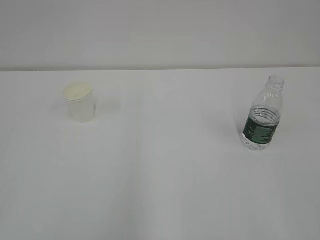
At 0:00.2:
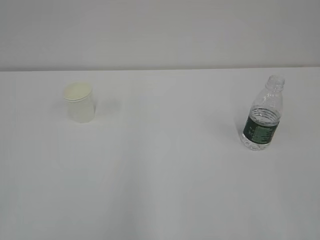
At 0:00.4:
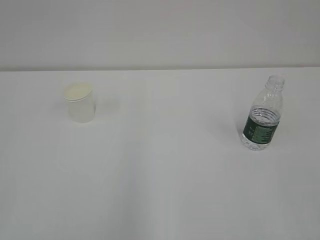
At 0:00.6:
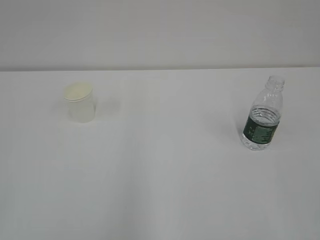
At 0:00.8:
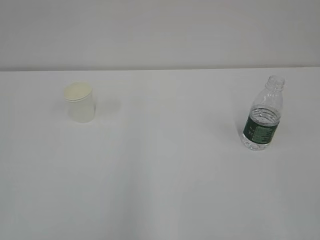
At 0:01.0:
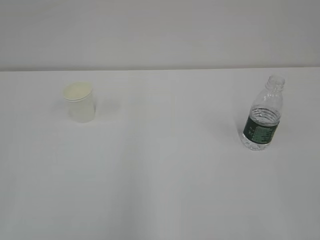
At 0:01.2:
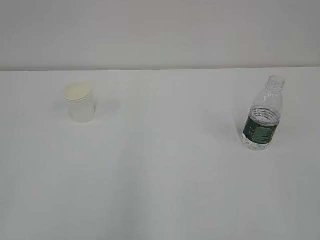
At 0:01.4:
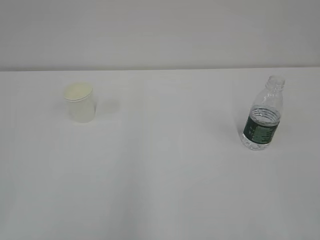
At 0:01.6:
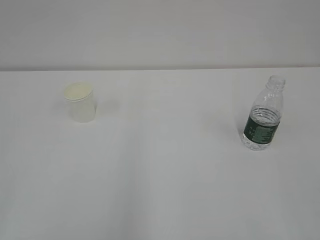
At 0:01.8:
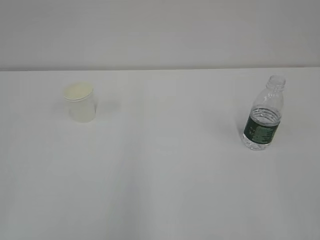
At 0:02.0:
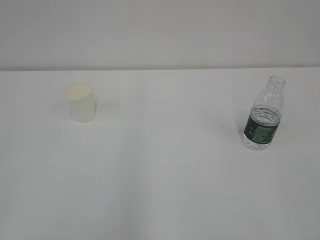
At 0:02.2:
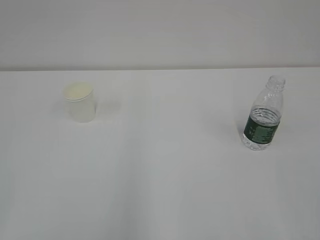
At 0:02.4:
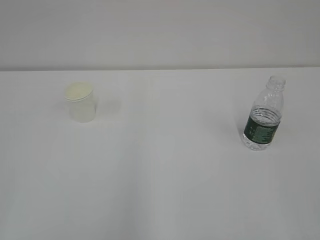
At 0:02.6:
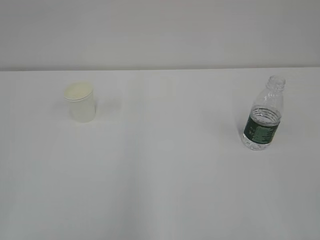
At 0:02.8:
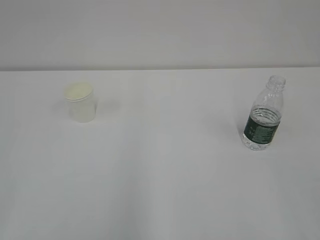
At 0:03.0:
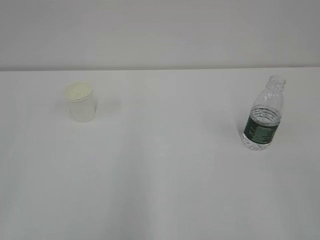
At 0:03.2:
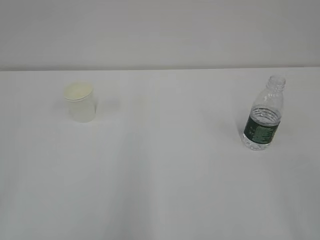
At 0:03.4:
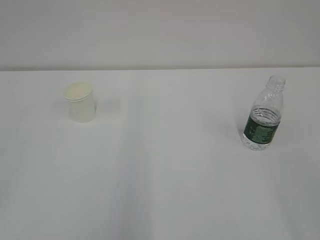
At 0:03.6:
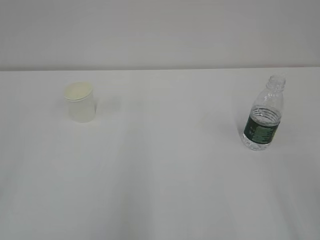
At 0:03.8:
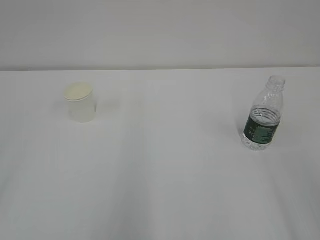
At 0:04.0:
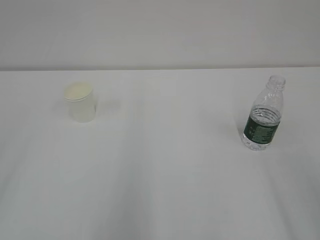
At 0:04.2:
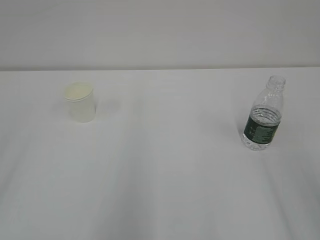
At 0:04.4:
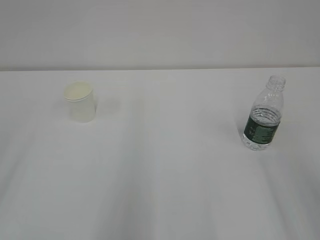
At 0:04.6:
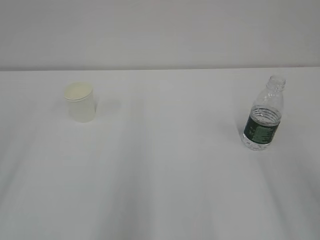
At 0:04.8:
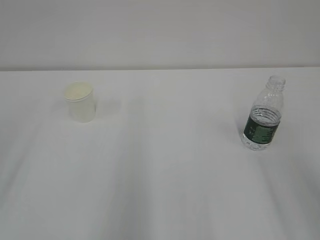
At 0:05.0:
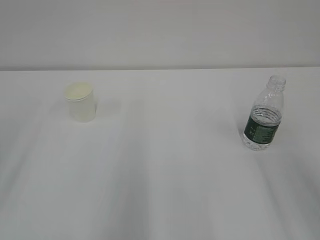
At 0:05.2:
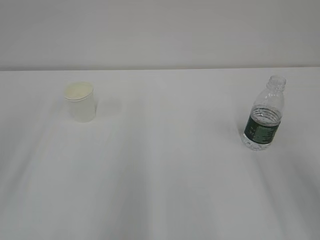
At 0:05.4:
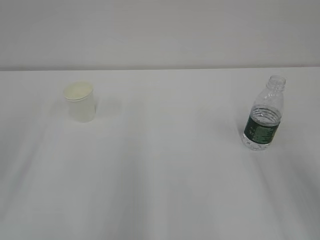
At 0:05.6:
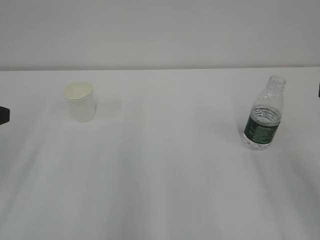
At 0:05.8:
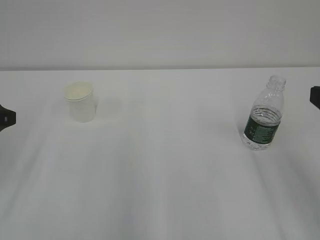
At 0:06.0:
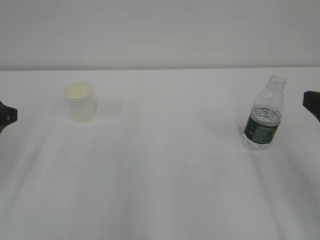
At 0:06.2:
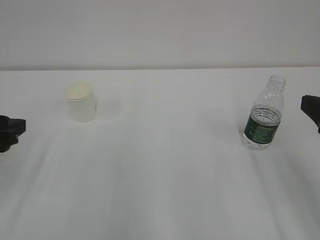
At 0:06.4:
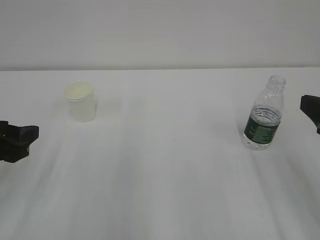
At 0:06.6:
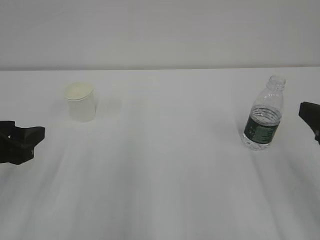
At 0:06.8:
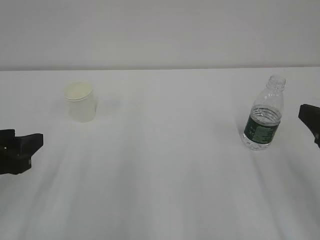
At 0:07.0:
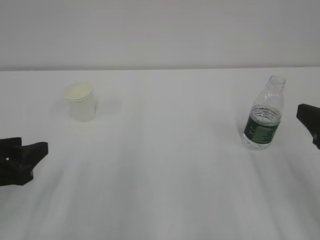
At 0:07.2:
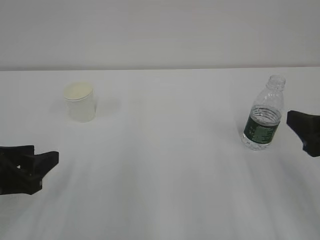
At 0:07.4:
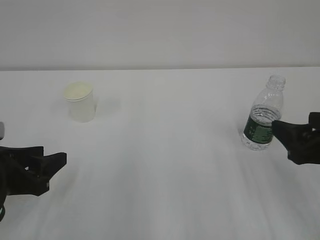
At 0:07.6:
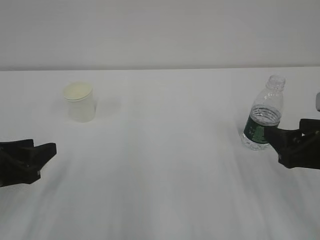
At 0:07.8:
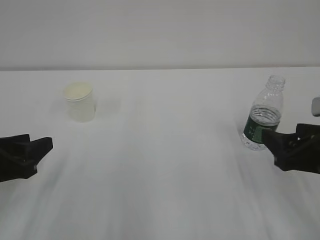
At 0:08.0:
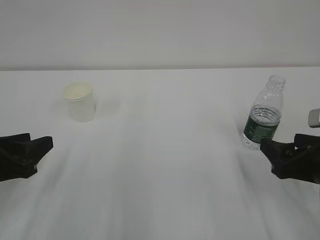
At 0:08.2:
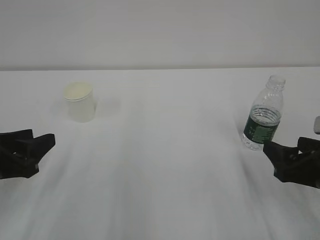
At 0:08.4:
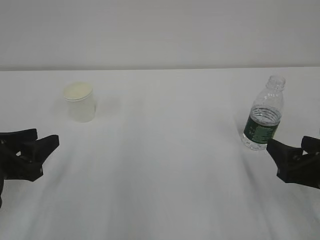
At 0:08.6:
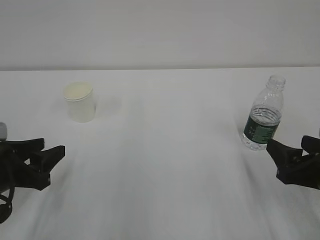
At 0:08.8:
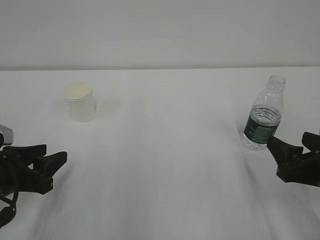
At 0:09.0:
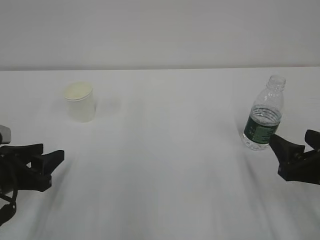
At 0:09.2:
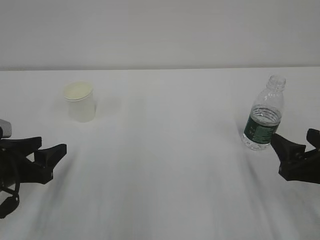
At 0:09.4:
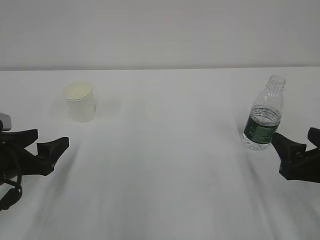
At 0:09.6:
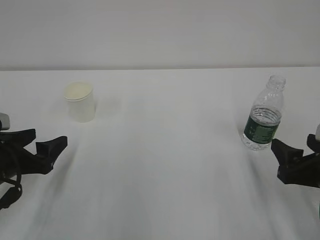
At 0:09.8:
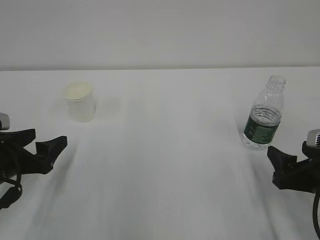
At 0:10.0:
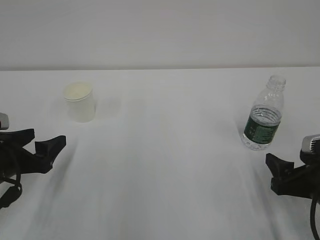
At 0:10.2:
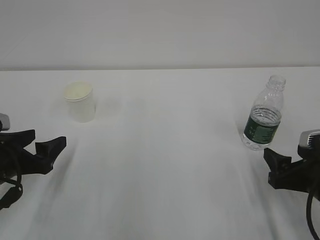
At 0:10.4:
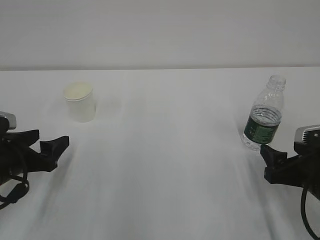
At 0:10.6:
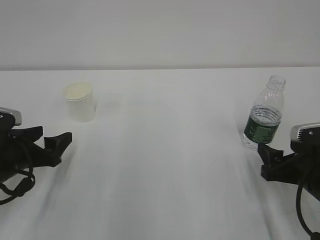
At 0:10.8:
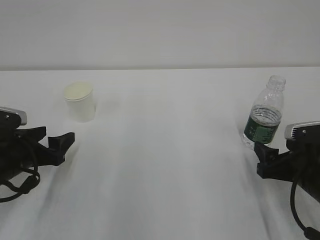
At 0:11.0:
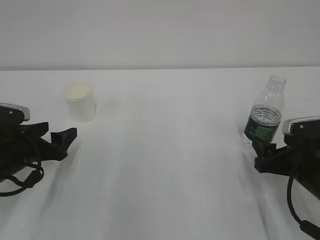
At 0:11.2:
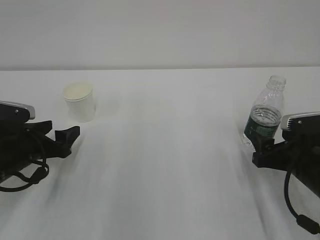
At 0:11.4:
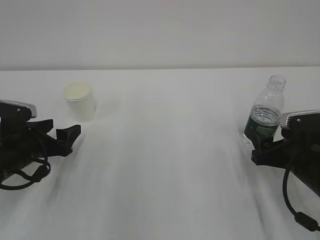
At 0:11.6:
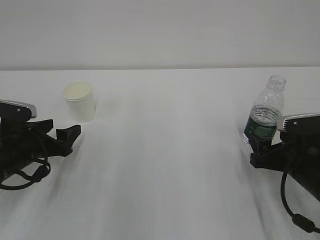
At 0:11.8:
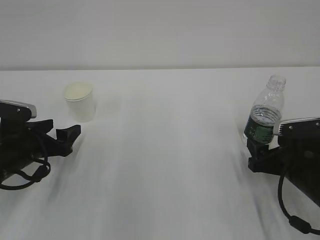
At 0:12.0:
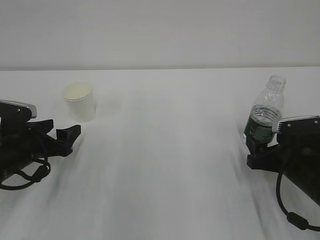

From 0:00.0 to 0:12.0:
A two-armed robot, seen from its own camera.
From 0:06.0 to 0:07.6: Both grippers travel together downward, approximately 5 cm. The left gripper closes up.
From 0:07.6 to 0:09.0: The grippers stay close to where they were, moving slightly.
From 0:09.0 to 0:10.4: The left gripper opens.
From 0:10.4 to 0:12.0: The right gripper moves some 5 cm. The left gripper ends up some 5 cm from where it was.

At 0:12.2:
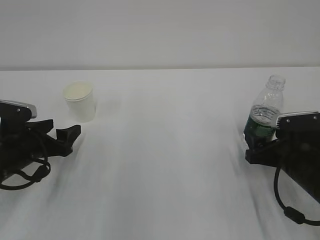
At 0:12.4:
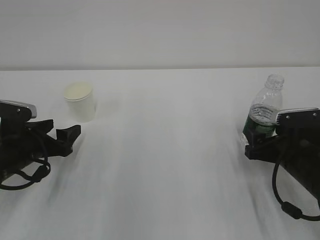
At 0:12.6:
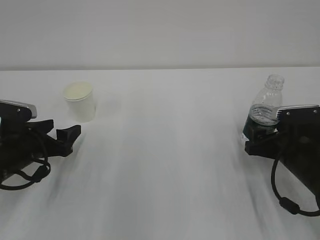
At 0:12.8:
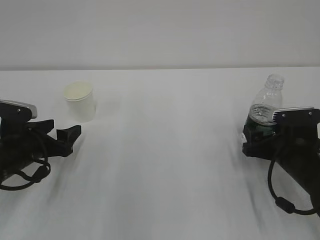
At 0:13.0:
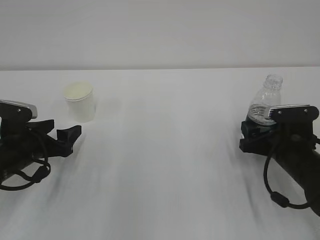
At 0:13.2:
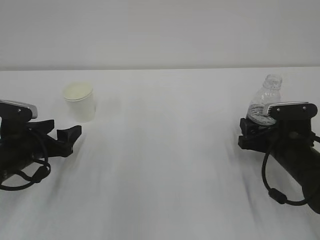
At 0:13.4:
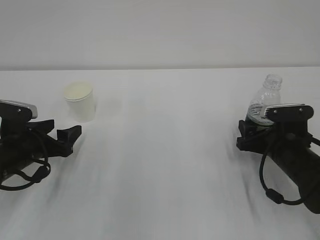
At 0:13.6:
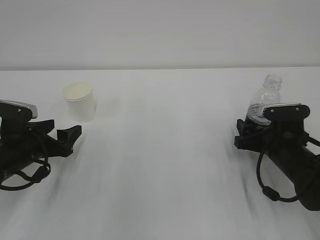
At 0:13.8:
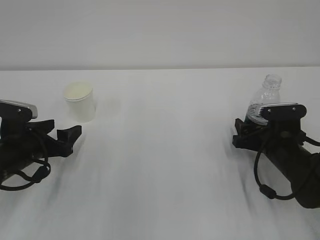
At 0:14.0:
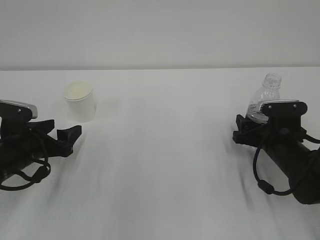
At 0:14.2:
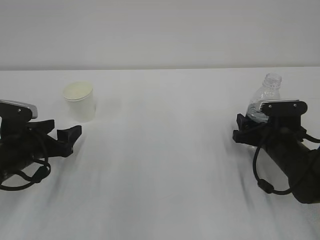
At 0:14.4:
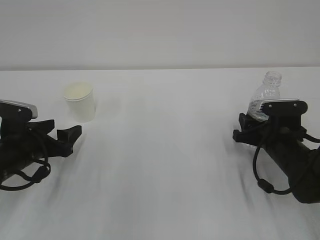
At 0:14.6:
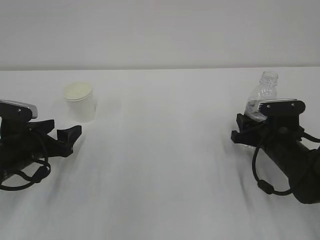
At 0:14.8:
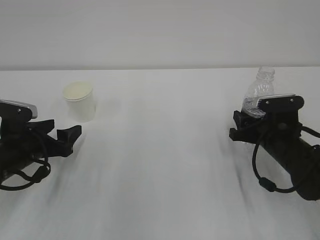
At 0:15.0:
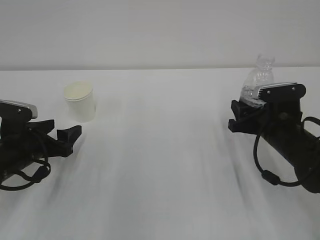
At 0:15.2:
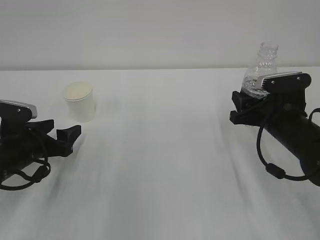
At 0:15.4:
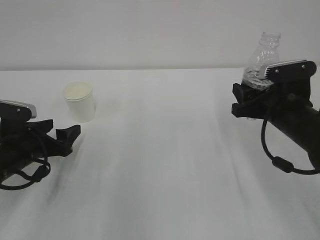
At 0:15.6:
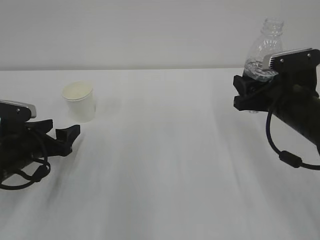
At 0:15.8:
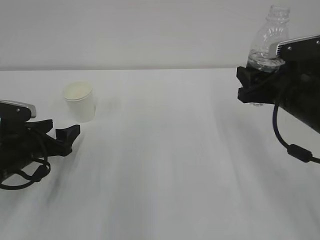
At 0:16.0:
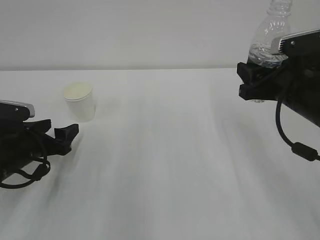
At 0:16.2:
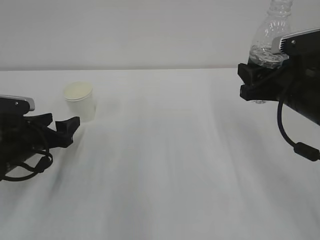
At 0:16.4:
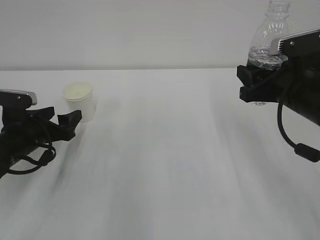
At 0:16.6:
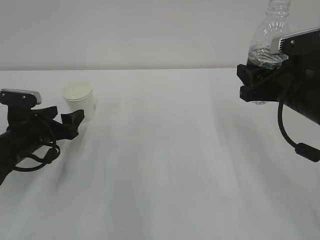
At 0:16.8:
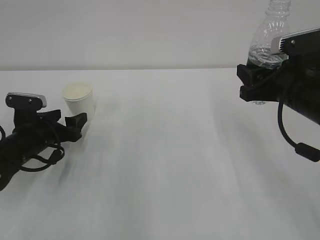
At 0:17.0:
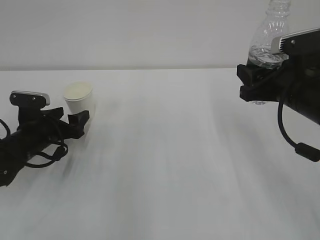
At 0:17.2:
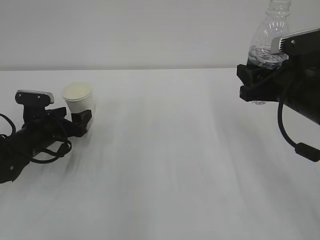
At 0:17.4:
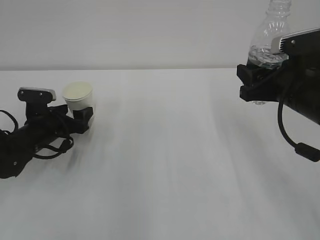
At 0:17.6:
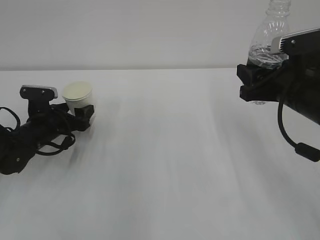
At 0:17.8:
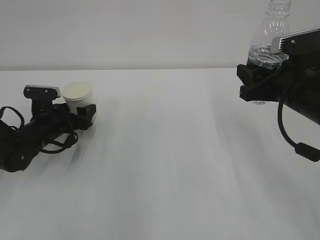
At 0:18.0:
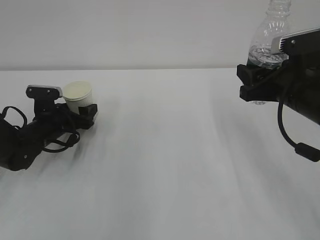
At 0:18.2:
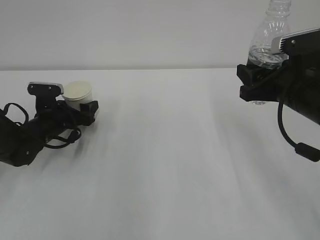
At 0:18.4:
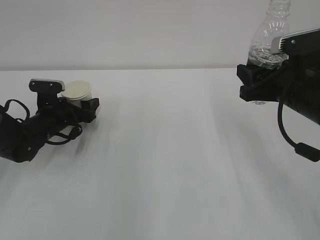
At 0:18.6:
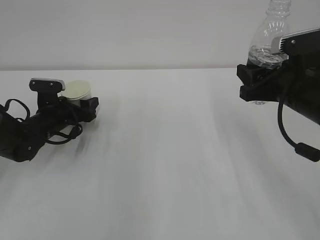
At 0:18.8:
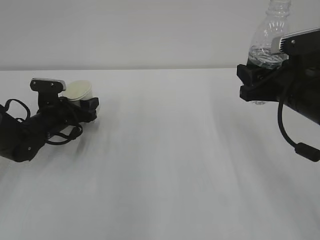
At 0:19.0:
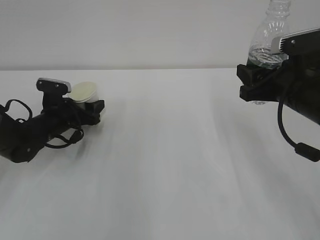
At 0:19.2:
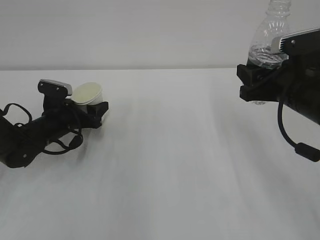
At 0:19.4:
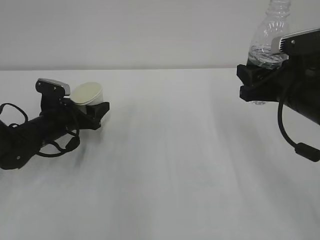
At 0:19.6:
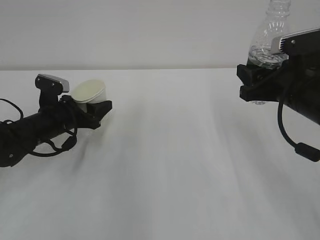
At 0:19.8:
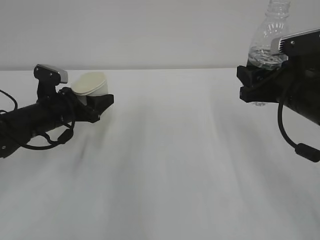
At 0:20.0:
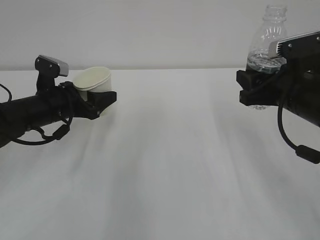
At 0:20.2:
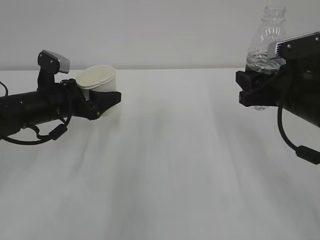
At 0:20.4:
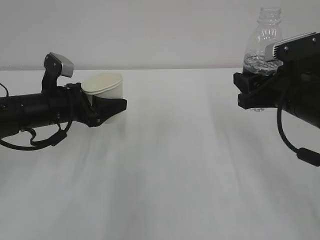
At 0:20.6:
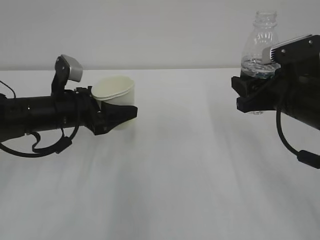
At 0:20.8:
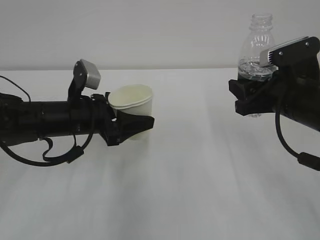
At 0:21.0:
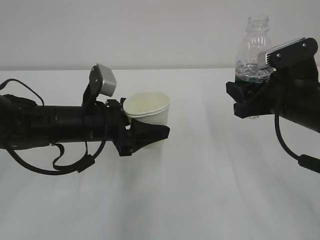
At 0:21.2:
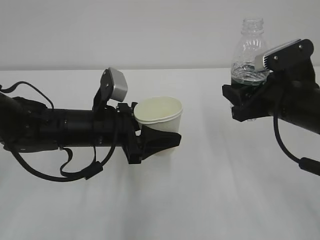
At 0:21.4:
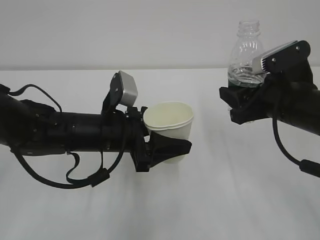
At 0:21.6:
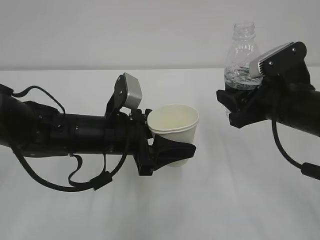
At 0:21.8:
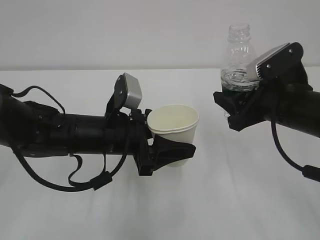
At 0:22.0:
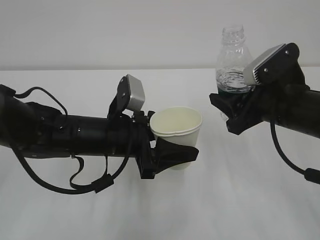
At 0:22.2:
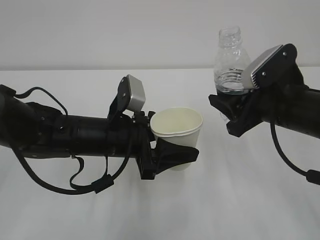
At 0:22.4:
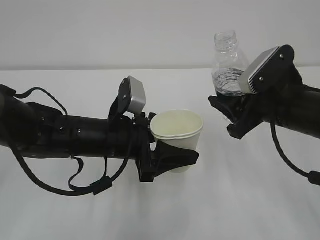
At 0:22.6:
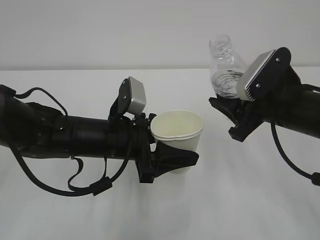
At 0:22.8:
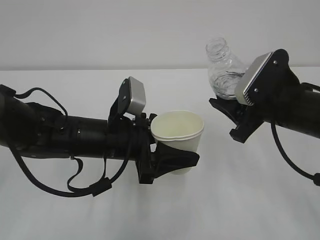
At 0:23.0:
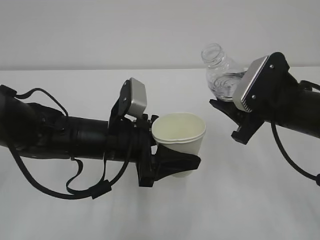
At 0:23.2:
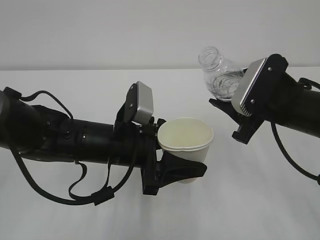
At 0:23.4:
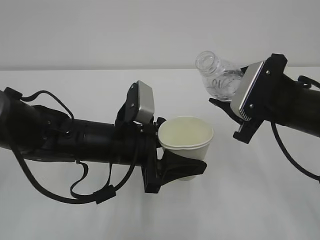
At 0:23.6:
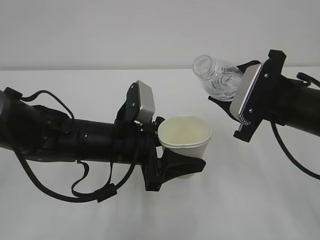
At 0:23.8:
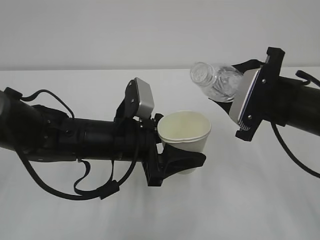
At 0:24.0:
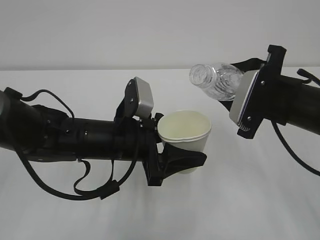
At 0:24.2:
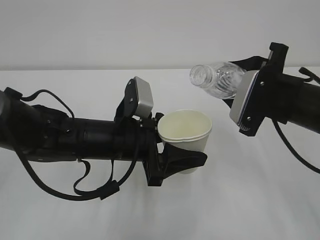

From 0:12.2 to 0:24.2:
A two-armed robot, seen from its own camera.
From 0:12.2 to 0:13.8: The right gripper changes place by about 5 cm.
From 0:13.8 to 0:15.2: The right gripper shifts roughly 5 cm upward, and closes.
From 0:15.2 to 0:16.6: The right gripper travels upward by roughly 10 cm.
From 0:16.6 to 0:18.2: The left gripper is displaced forward by approximately 5 cm.
From 0:18.2 to 0:19.8: The left gripper travels upward by about 5 cm, and closes its fingers.
From 0:19.8 to 0:21.2: The left gripper travels to the right and backward by some 15 cm.
